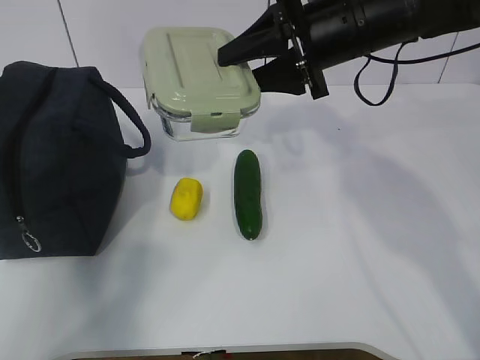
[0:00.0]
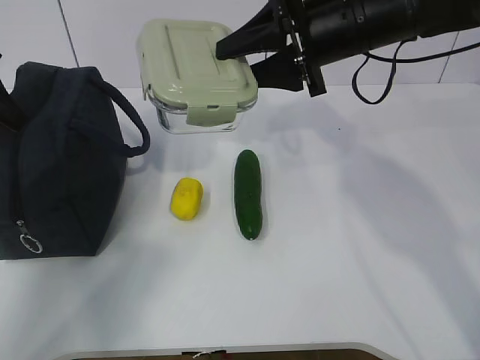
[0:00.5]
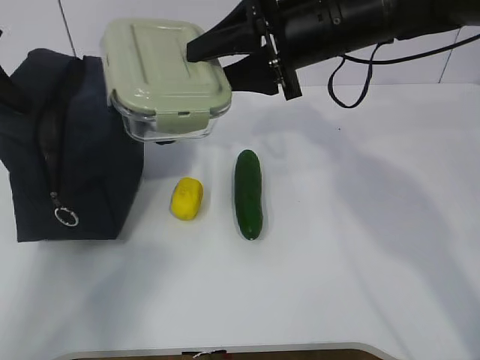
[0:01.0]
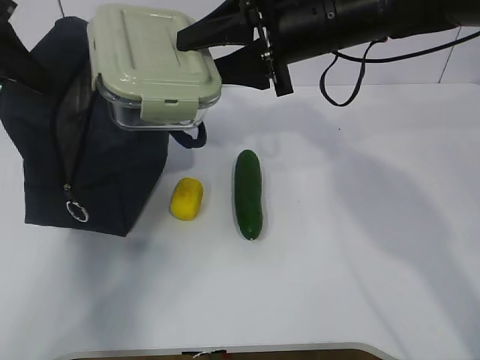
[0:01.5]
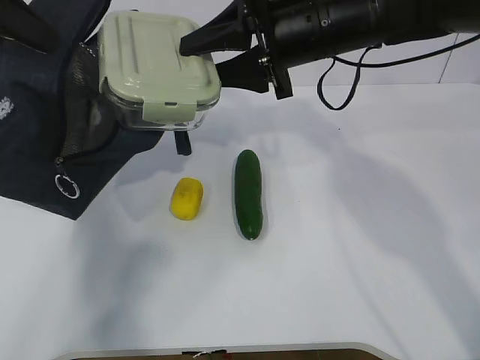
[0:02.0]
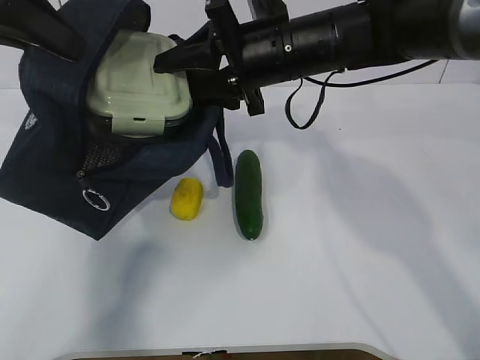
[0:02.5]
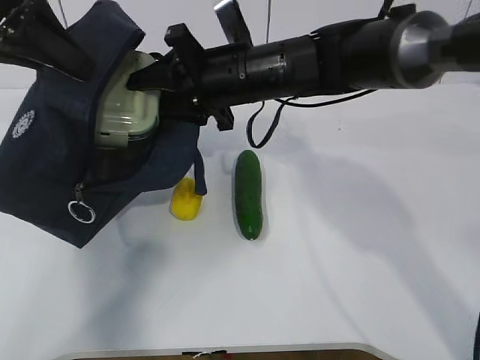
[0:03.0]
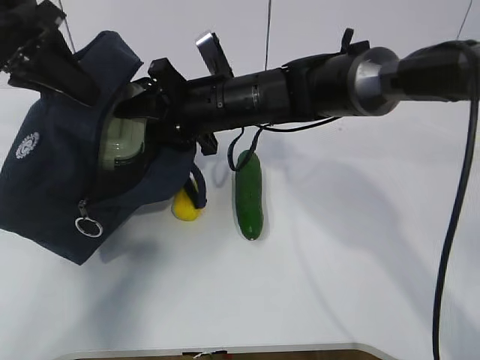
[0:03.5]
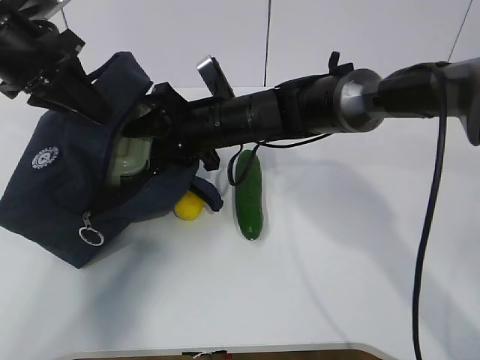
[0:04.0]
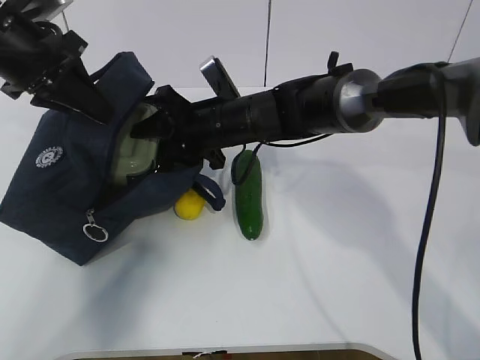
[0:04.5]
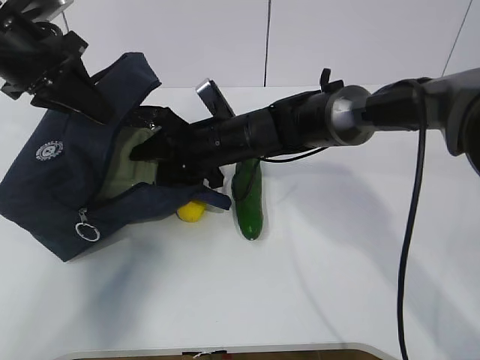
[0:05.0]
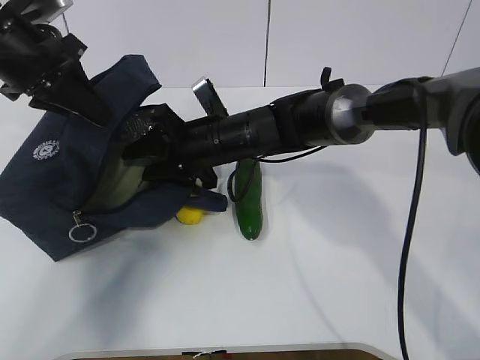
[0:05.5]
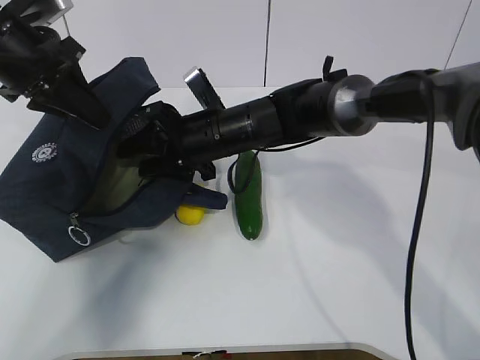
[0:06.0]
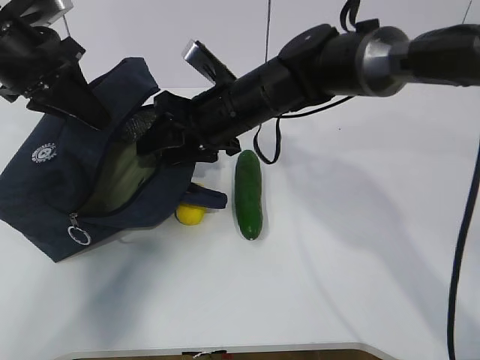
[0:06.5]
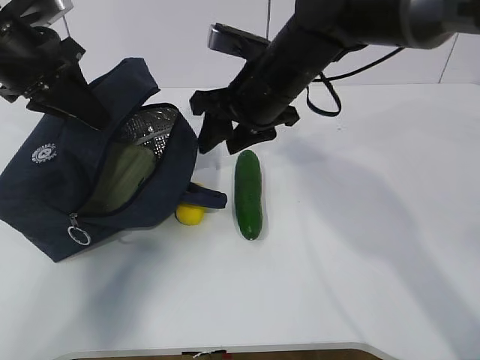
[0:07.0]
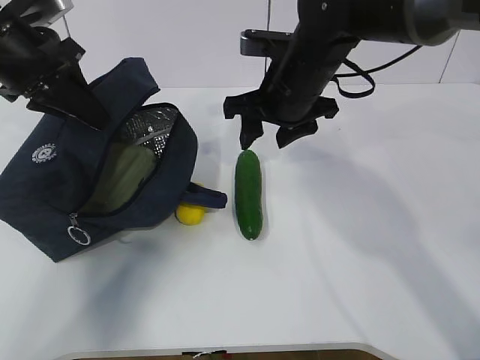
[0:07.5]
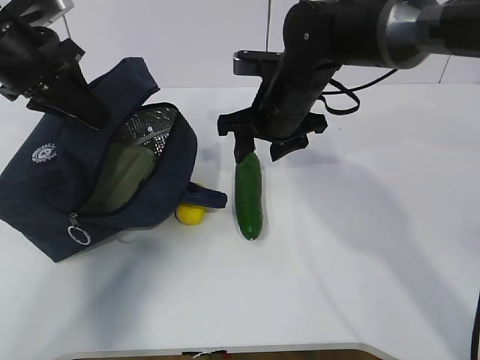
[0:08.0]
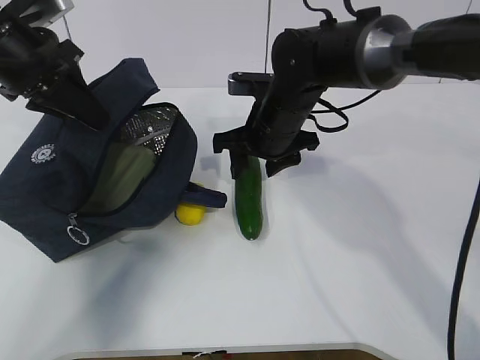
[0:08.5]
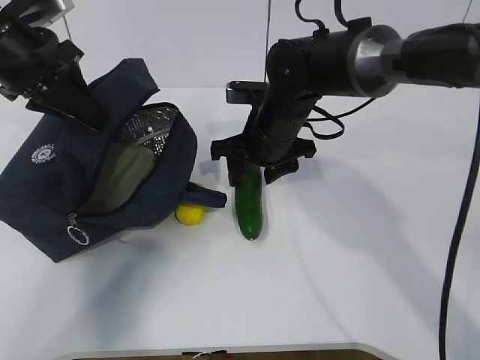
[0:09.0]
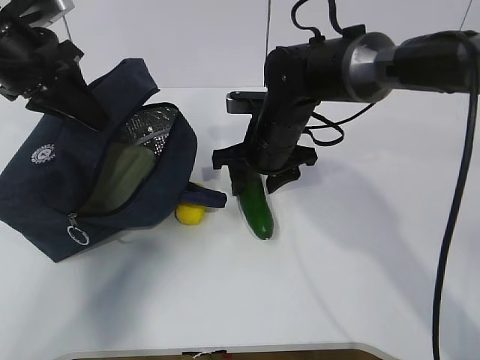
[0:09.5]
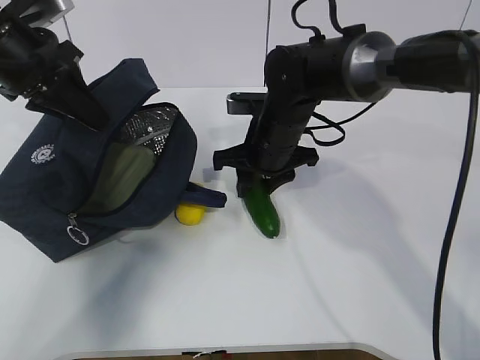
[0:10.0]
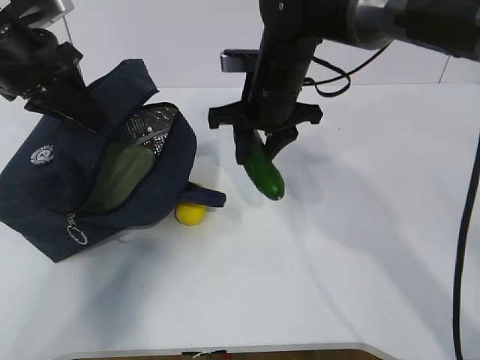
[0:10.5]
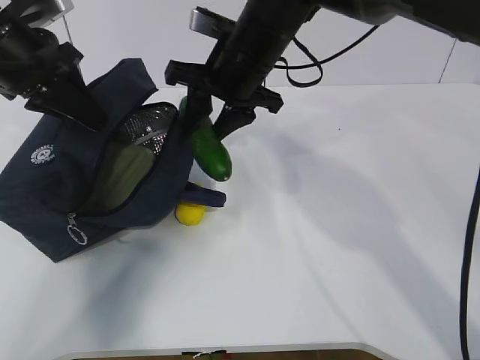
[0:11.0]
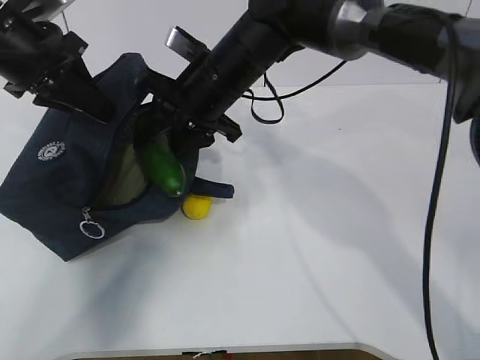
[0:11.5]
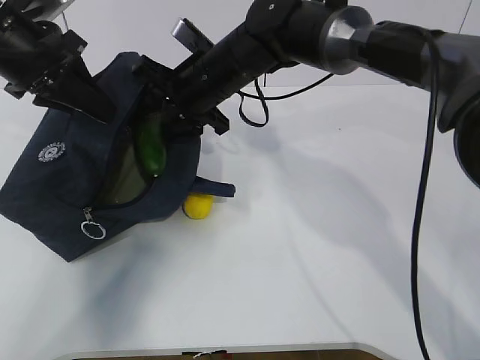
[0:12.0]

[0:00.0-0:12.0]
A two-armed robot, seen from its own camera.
Step, 0.0 to 1.5 s: Place it into the bag with your right hand.
Step, 2.0 to 5.0 s: Grab the cucumber with your right hand.
Step, 5.5 to 7.5 s: Place it into the bag with your right hand.
Step, 8.0 to 11.0 s: Grab the lemon with your right hand.
0.0 to 2.0 s: The left gripper shifts approximately 5 cm to the right, and closes up.
2.0 to 4.0 s: The left gripper moves downward, roughly 10 cm, while the right gripper moves downward and to the left, about 15 cm.
4.0 to 6.0 s: The grippers move only a little.
6.0 to 8.0 s: The right gripper is displaced to the right by about 10 cm.
8.0 to 10.0 s: The right gripper ends up some 5 cm from where it was.
10.0 to 12.0 s: The right gripper shifts about 10 cm to the left and upward.

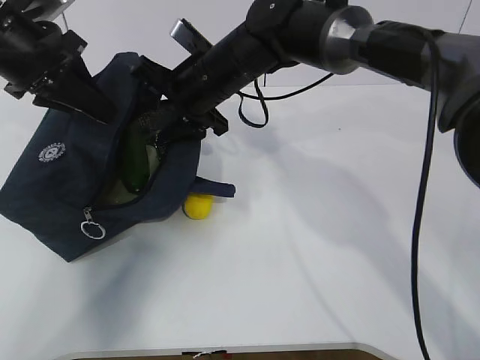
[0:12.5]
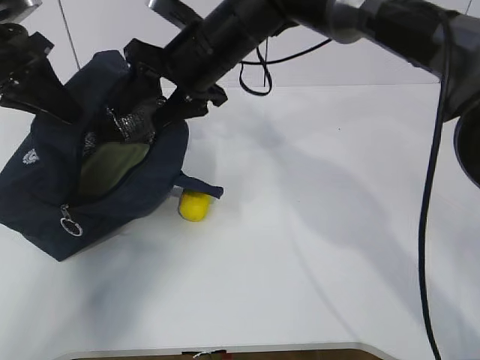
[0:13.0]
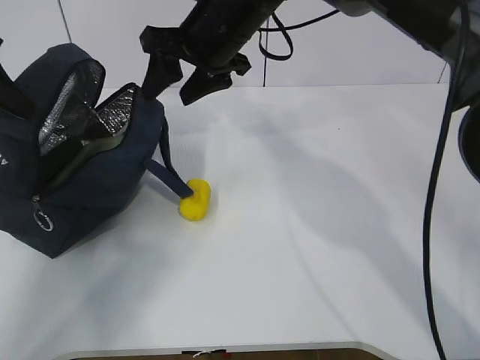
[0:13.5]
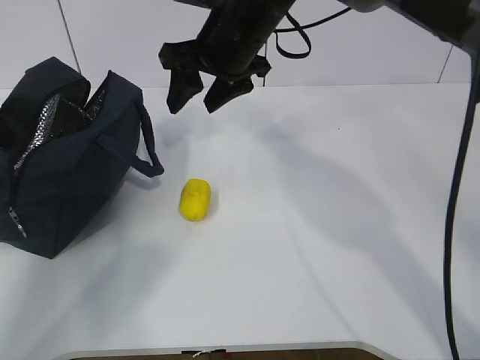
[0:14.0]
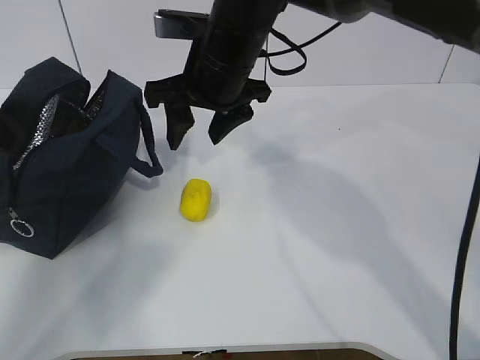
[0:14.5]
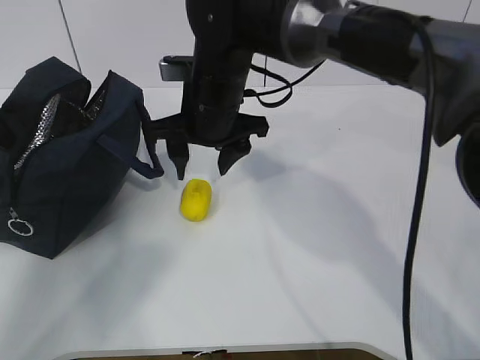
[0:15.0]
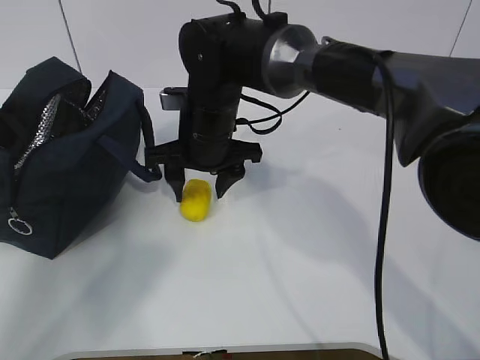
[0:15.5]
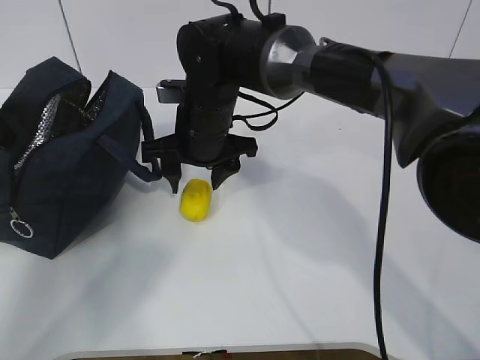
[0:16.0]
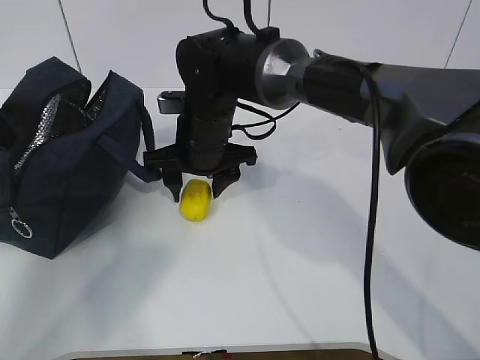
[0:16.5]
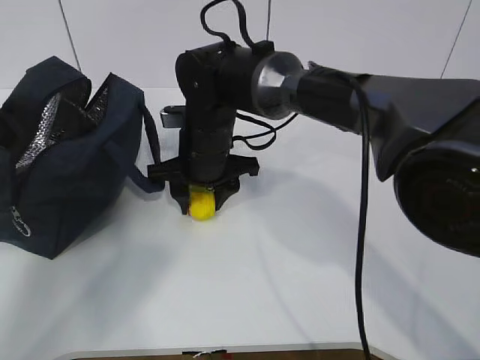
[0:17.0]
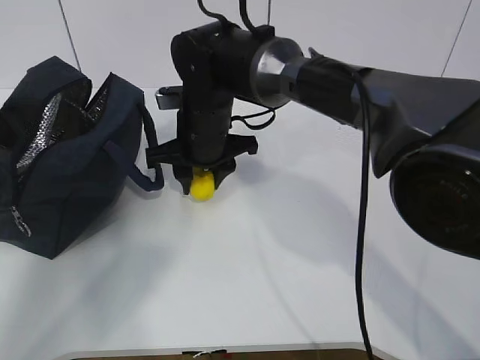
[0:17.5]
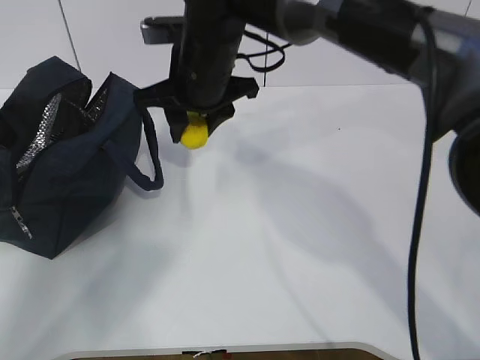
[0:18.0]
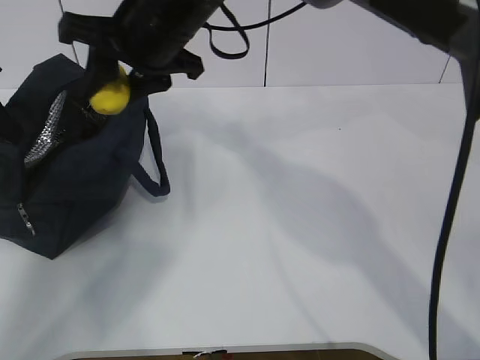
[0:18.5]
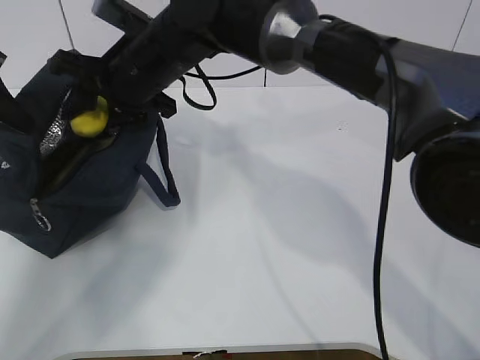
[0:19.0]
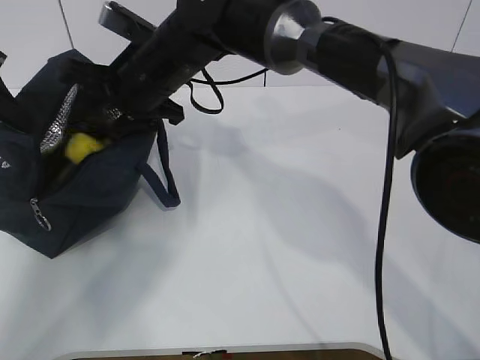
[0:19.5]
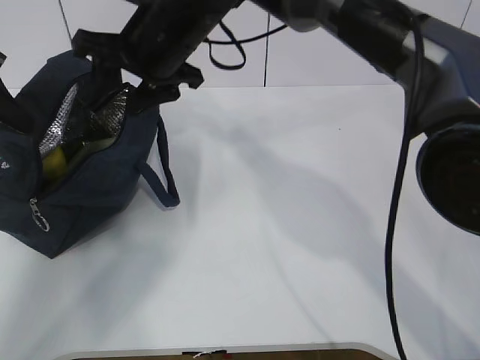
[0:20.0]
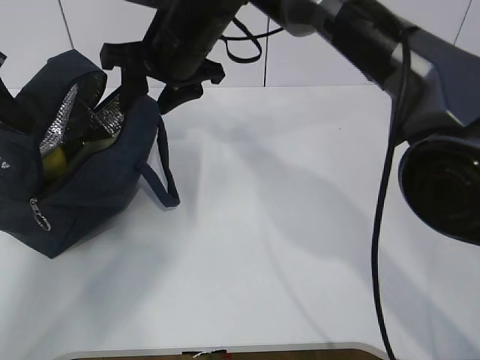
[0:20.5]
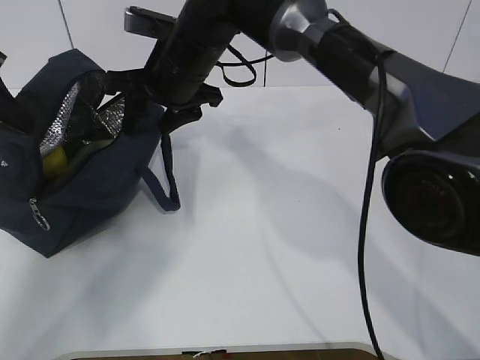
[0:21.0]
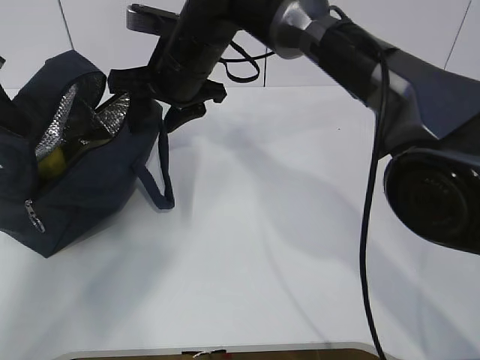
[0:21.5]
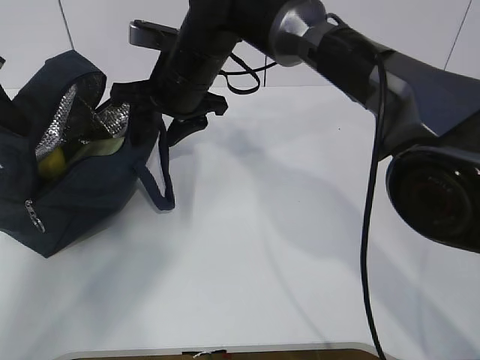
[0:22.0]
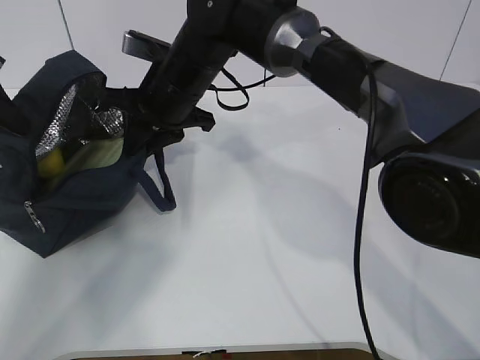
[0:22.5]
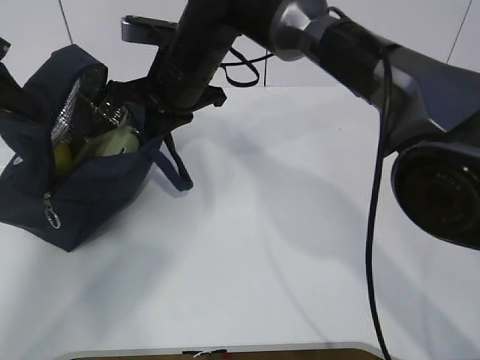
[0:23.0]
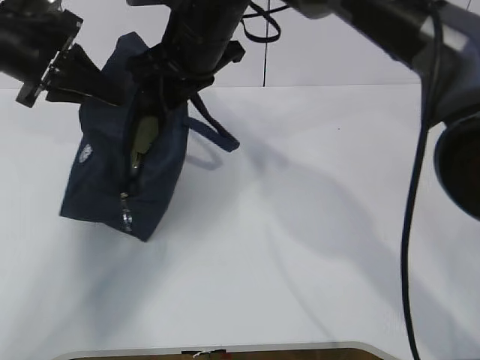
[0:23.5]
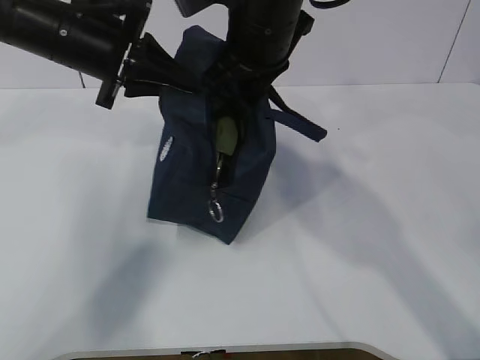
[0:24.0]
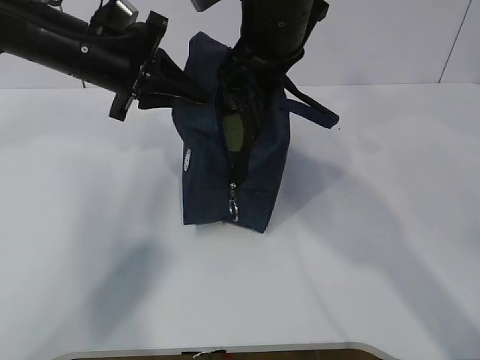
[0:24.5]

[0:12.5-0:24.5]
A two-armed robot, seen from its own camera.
Step, 14.0 to 15.5 s: Grab the lunch bag with your right hand.
Step, 16.0 to 18.5 s: Move the lunch bag to the right.
12.5 to 14.5 s: The left gripper heads to the left, covering roughly 10 cm. The right gripper changes place by about 5 cm.
14.5 to 16.5 s: The right gripper moves downward, roughly 10 cm.
16.5 to 18.5 s: The right gripper heads upward, covering some 15 cm.
18.5 to 20.5 s: The right gripper ends up some 5 cm from where it was.
20.5 to 22.5 s: The right gripper goes roughly 5 cm downward, and closes its fingers.
22.5 to 24.5 s: The right gripper moves to the right and upward, approximately 15 cm. The left gripper is displaced to the right by some 20 cm.

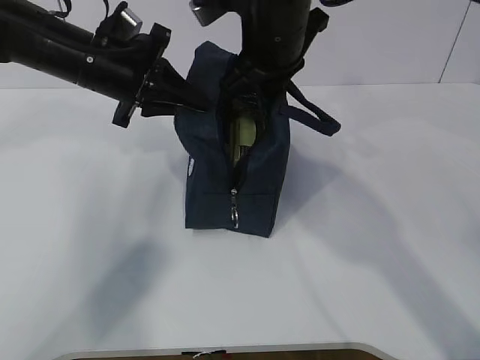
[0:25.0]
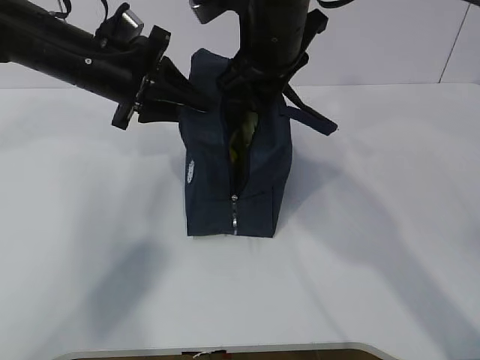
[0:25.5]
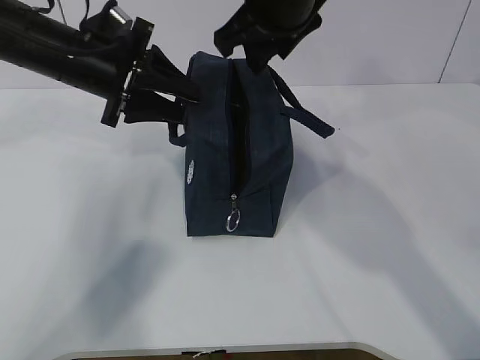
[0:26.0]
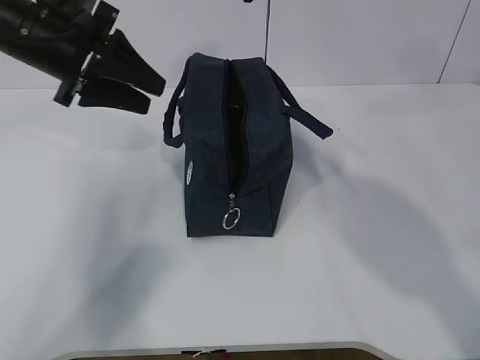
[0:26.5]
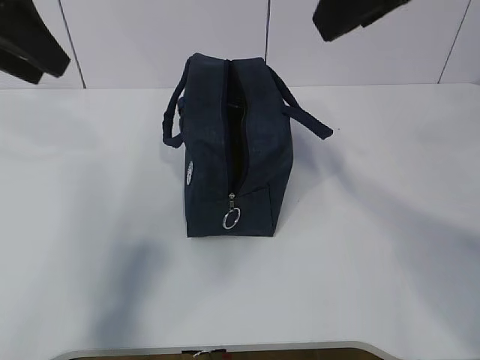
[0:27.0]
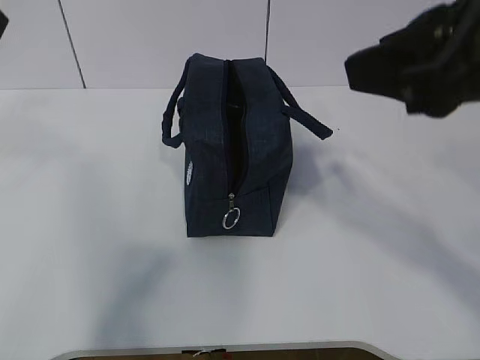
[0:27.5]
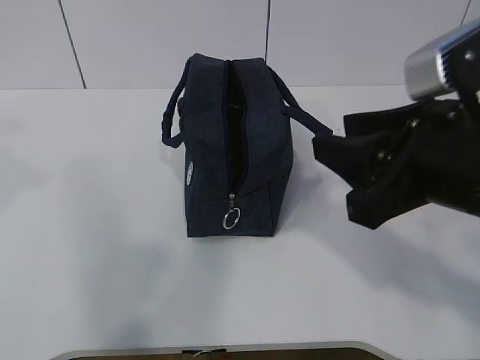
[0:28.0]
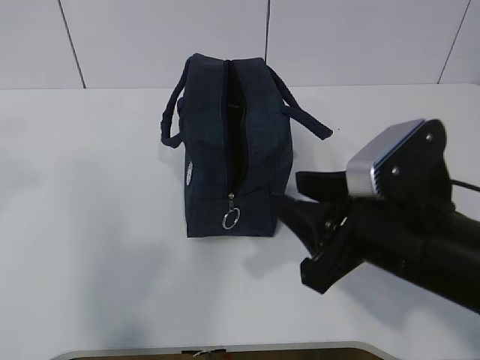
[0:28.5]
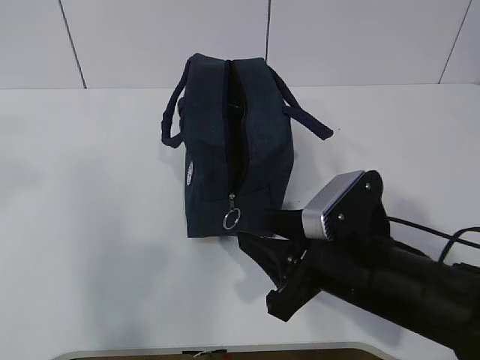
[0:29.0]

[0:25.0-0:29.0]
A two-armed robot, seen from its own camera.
25.0 to 27.0 s: The left gripper goes roughly 15 cm upward, backward and to the left, and opens its fingers, while the right gripper heads backward, upward and to the right, covering about 20 cm, and opens its fingers.
27.0 to 29.0 s: The right gripper shifts approximately 30 cm downward. Meanwhile the left gripper shifts approximately 15 cm backward.
